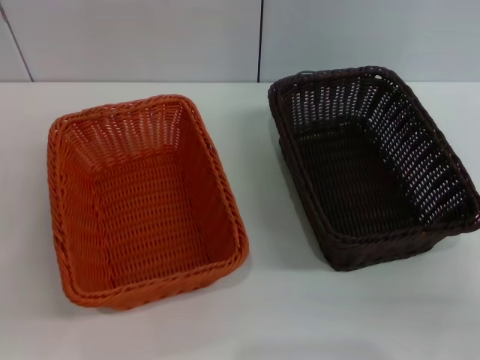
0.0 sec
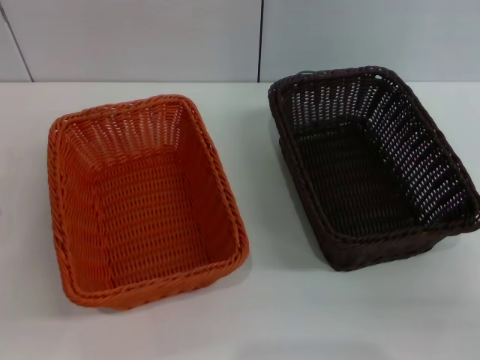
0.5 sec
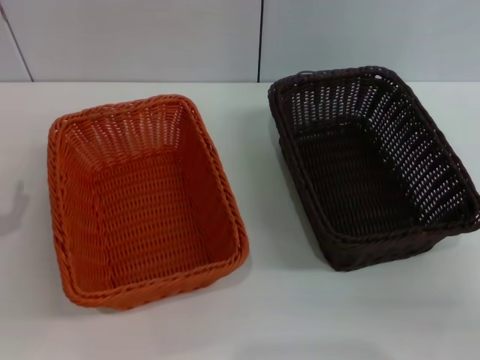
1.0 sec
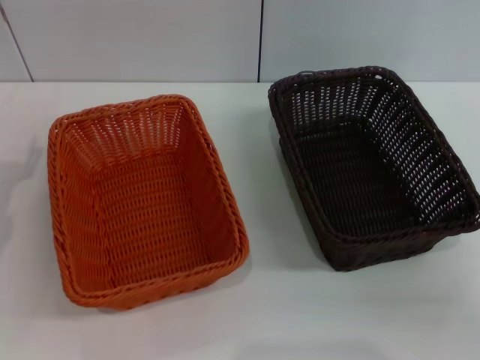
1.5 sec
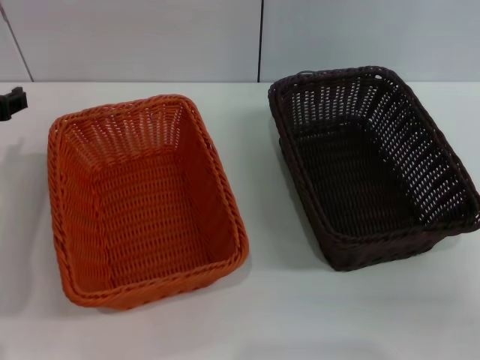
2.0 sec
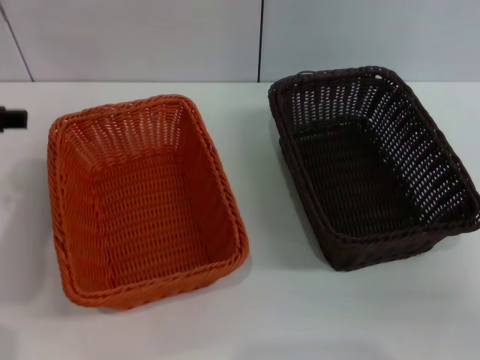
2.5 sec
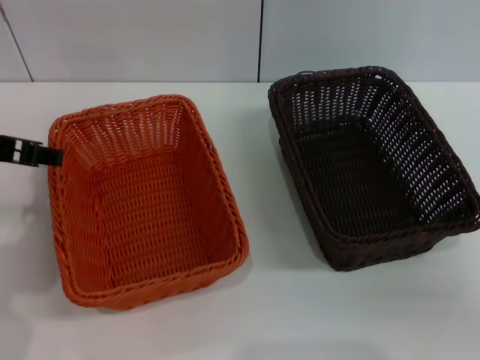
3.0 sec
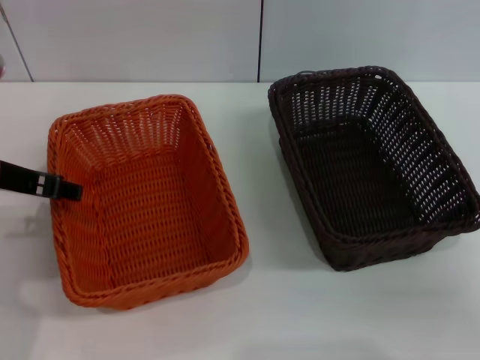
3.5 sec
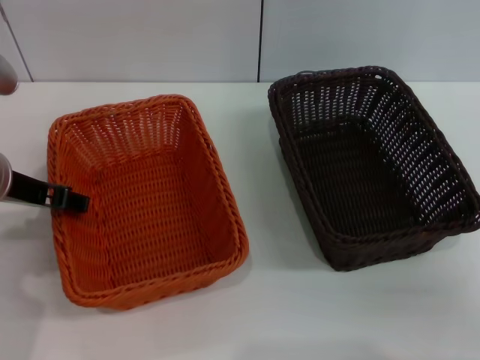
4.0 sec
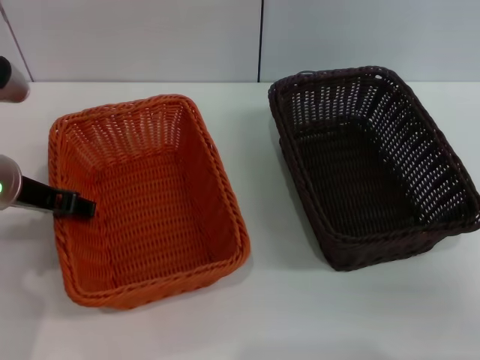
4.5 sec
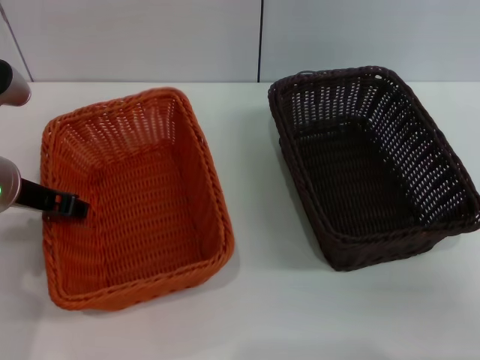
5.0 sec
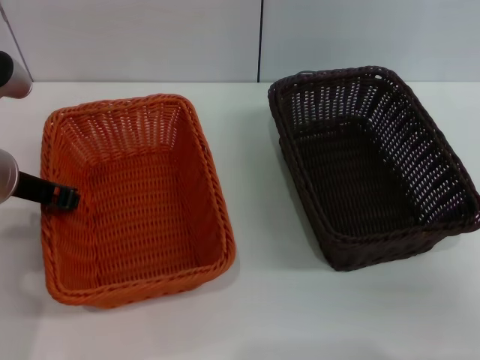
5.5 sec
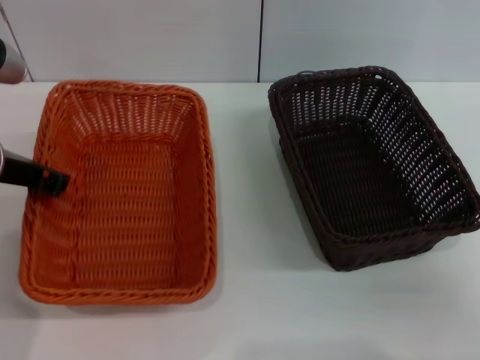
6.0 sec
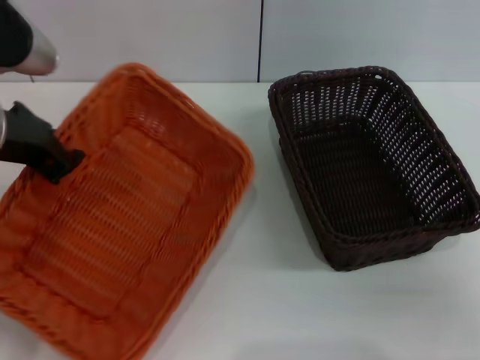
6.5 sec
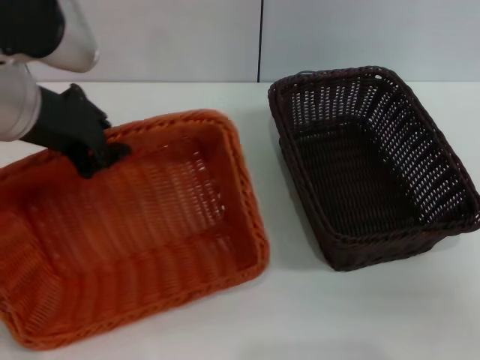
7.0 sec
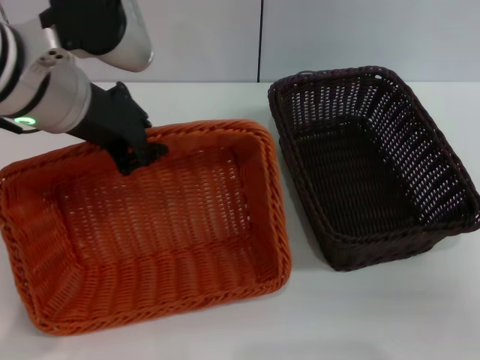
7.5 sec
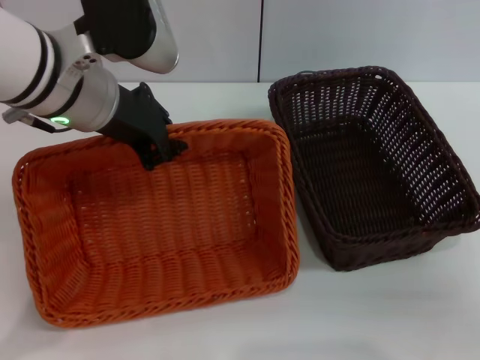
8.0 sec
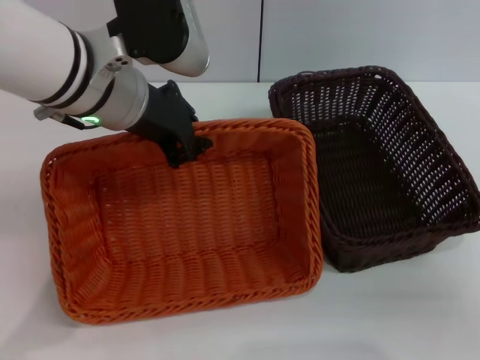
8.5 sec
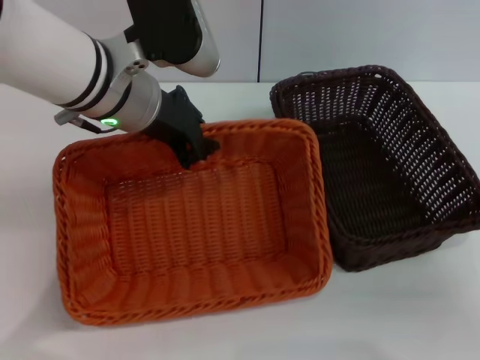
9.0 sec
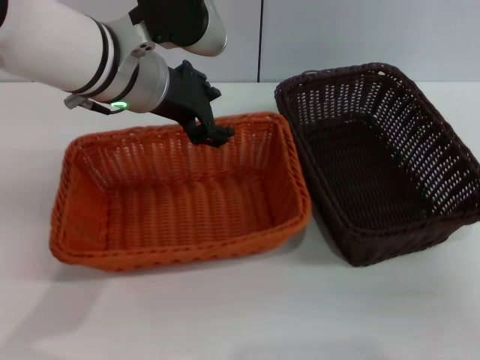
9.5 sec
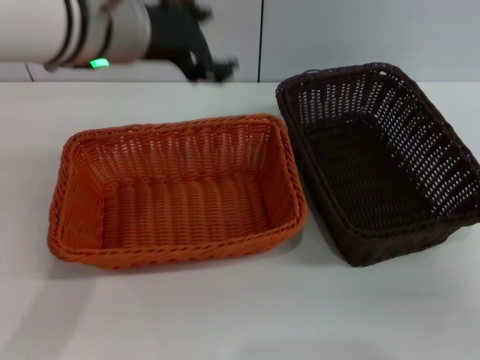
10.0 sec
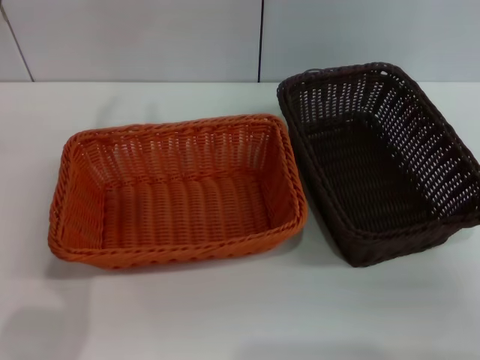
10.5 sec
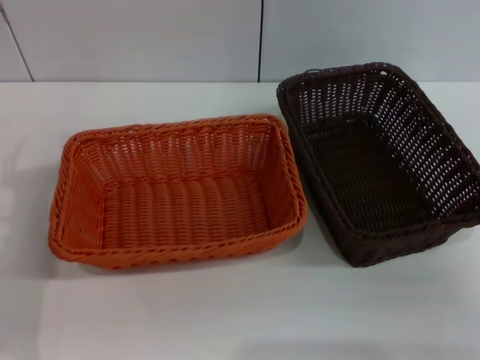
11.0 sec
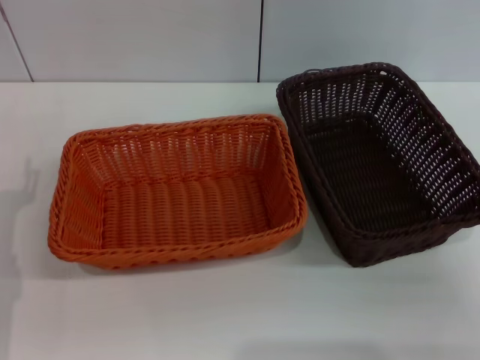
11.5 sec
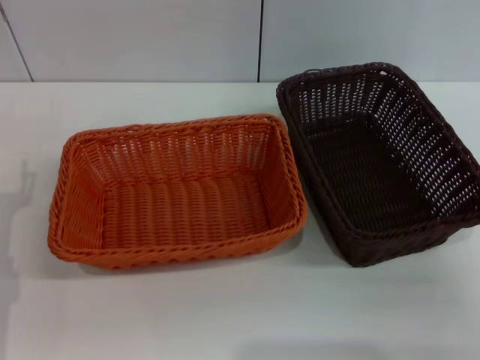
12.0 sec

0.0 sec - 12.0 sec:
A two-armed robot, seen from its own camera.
Step, 0.0 sec - 5.5 sec: Pick up the light basket with the left gripper.
Step, 6.0 sec - 9.5 sec: Place the light basket in the center of view with the left gripper.
0.0 sec - 2.0 sec: The left gripper moves upward and forward, approximately 20 cm.
4.0 sec - 6.0 sec: The left gripper closes up.
6.0 sec - 8.0 sec: The left gripper travels to the right and upward by roughly 10 cm.
8.0 sec - 10.0 sec: The left gripper opens its fingers.
10.0 sec - 12.0 sec: The left gripper is displaced downward, to the left and backward by some 30 cm.

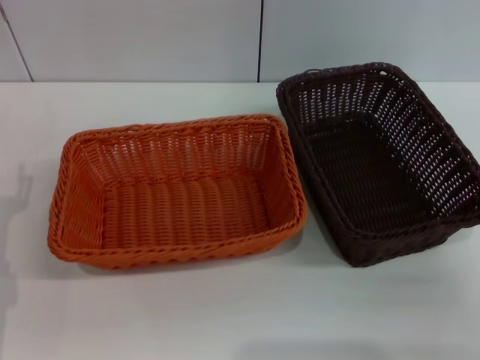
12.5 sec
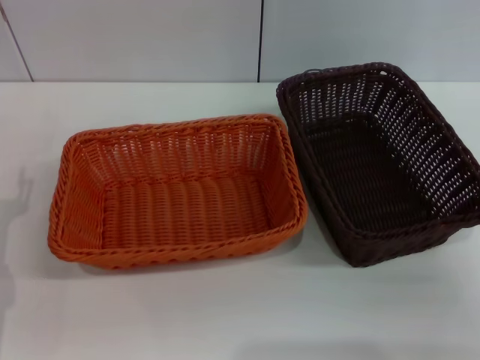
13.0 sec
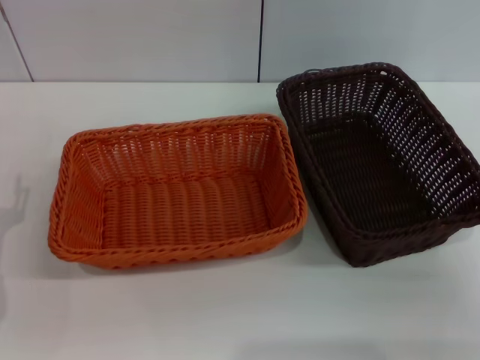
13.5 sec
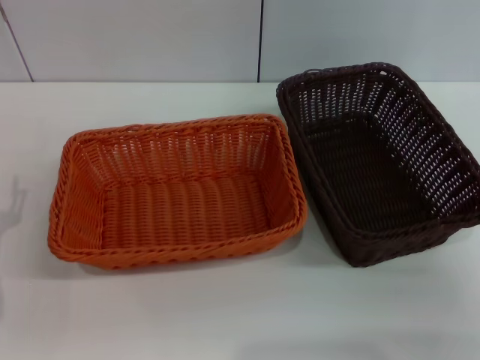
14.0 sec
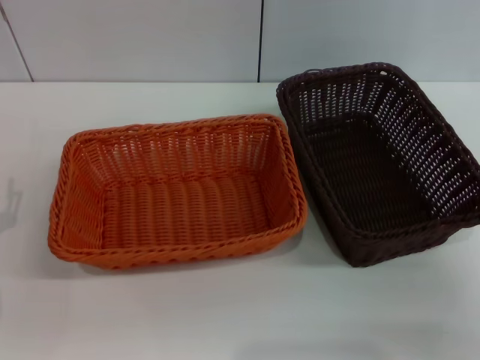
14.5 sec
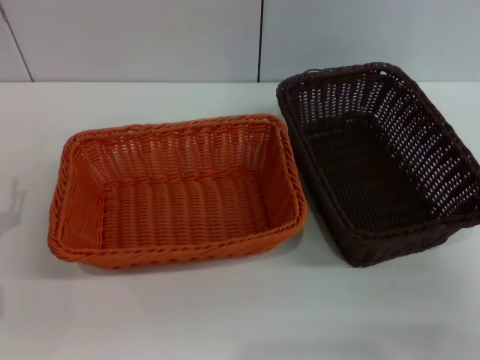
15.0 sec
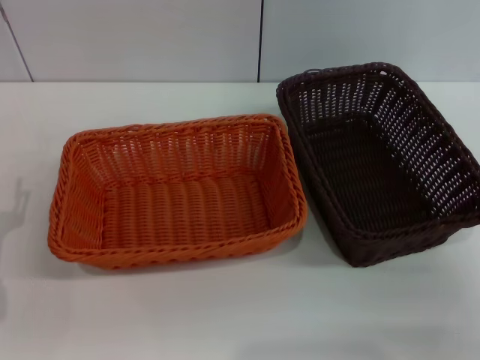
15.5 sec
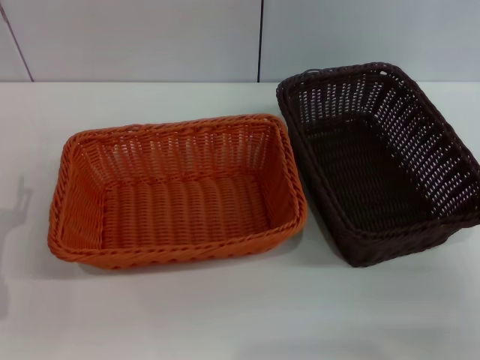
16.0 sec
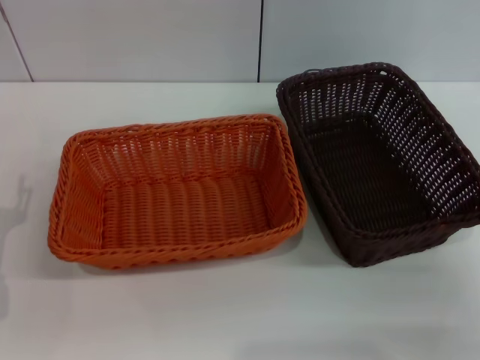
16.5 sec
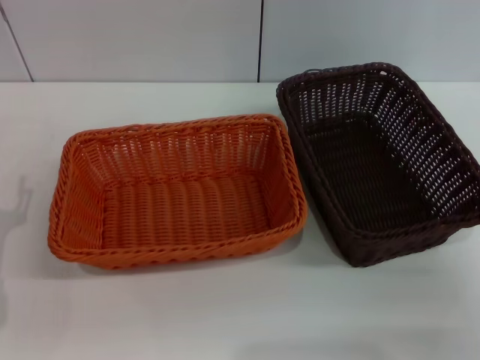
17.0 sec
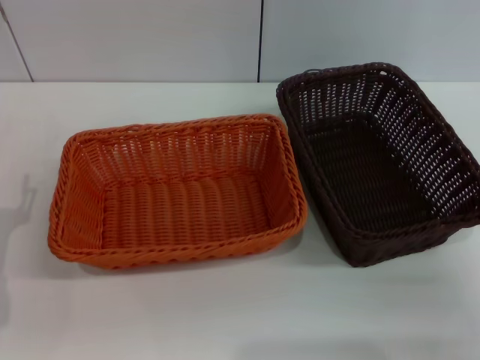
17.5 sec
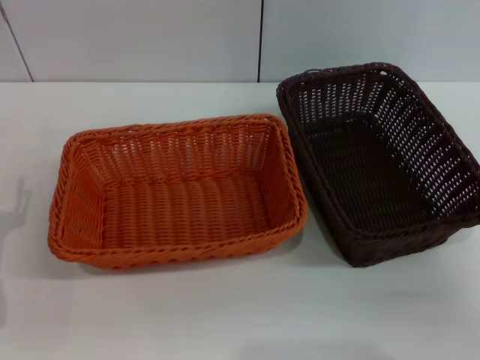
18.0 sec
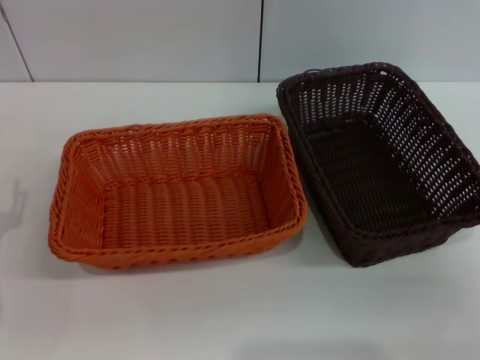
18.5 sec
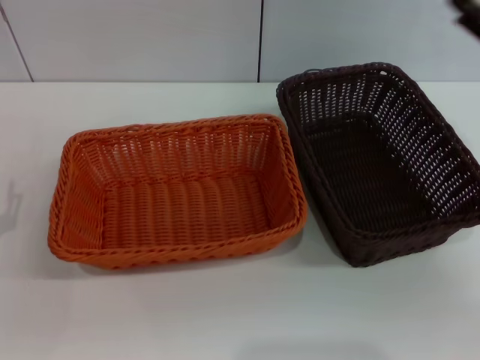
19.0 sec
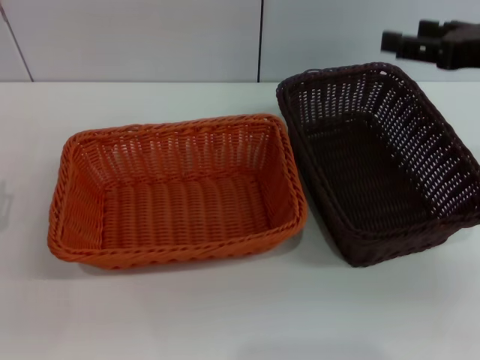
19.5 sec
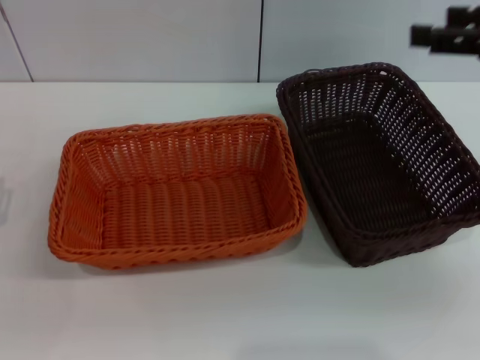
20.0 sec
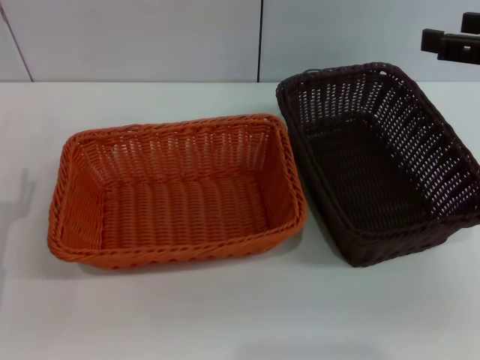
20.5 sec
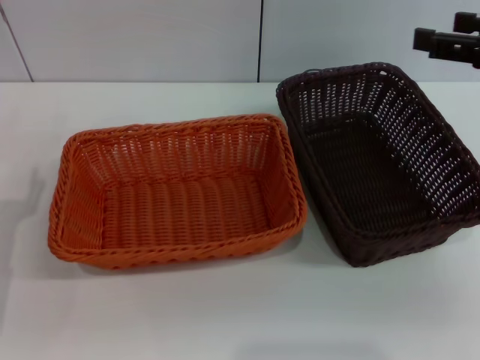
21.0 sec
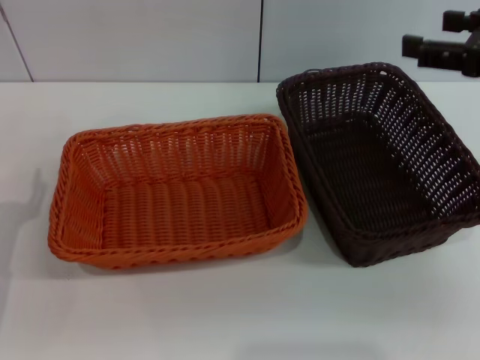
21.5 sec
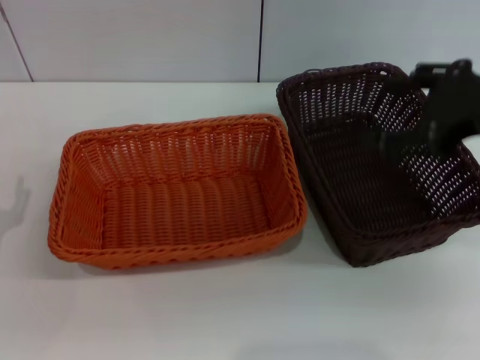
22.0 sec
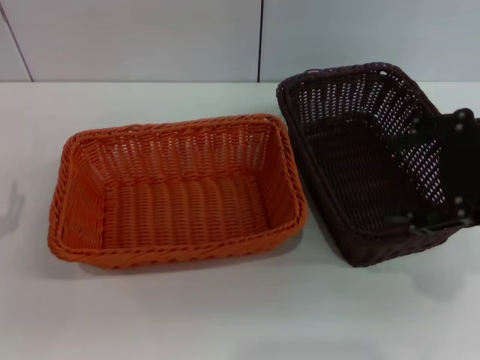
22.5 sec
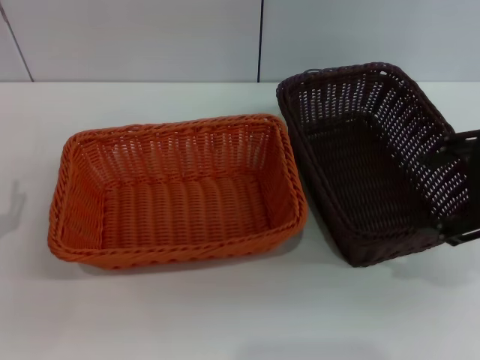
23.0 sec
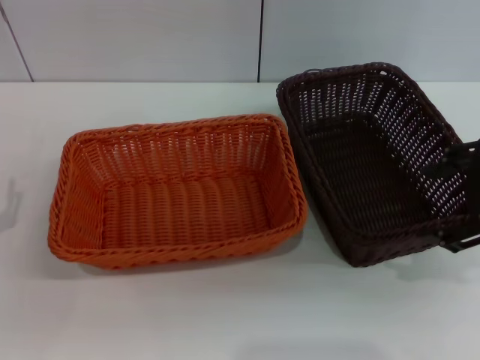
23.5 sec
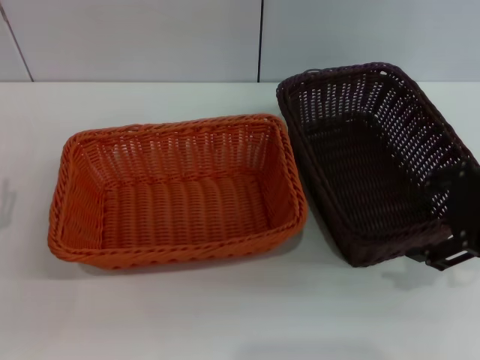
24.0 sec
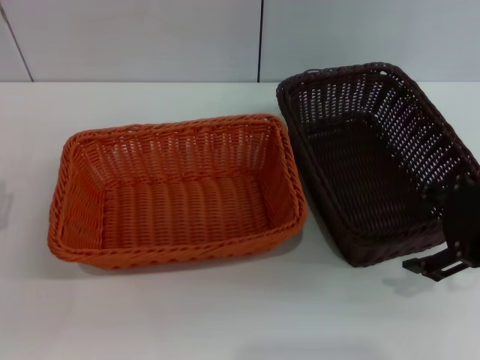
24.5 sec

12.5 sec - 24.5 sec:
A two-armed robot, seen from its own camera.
14.5 sec - 16.5 sec: The two grippers keep their place.
18.5 sec - 20.5 sec: The right gripper heads upward and forward, covering roughly 20 cm.
20.5 sec - 22.5 sec: The right gripper is displaced to the left by approximately 5 cm.
22.5 sec - 24.5 sec: The right gripper heads downward, covering roughly 5 cm.

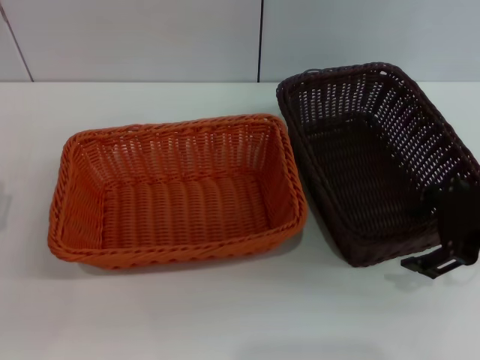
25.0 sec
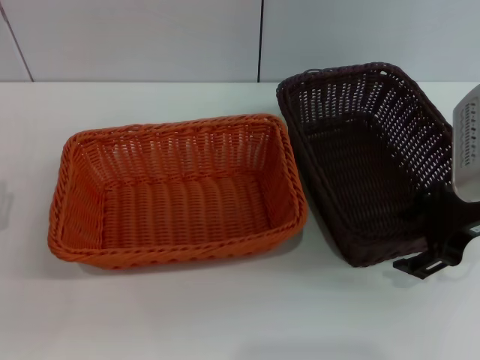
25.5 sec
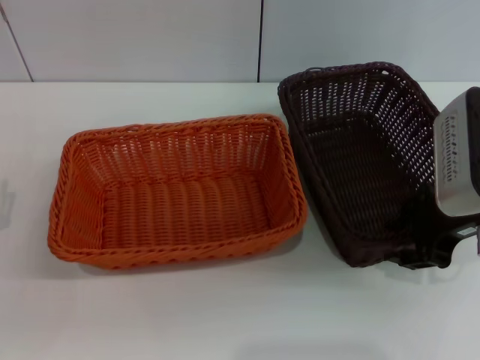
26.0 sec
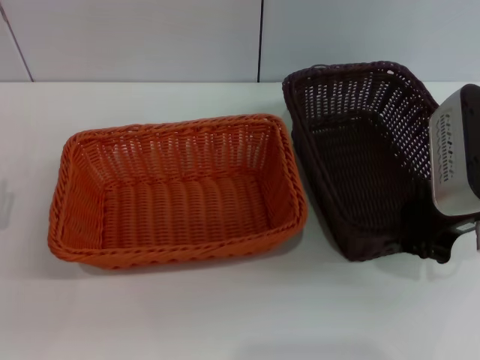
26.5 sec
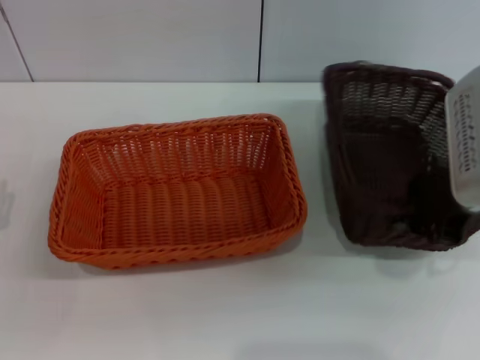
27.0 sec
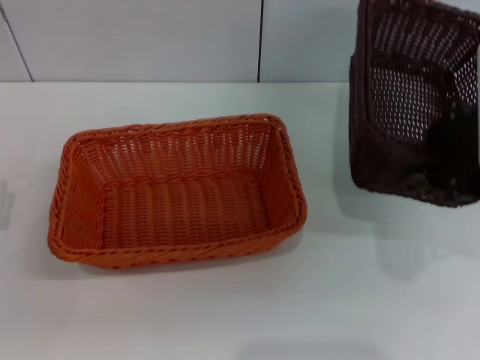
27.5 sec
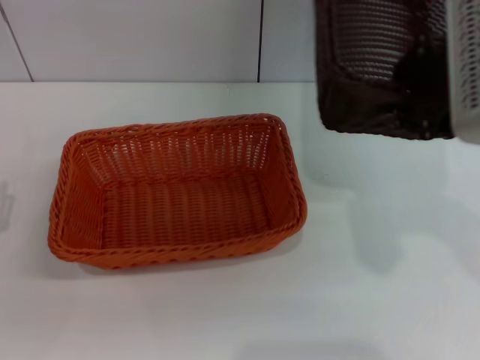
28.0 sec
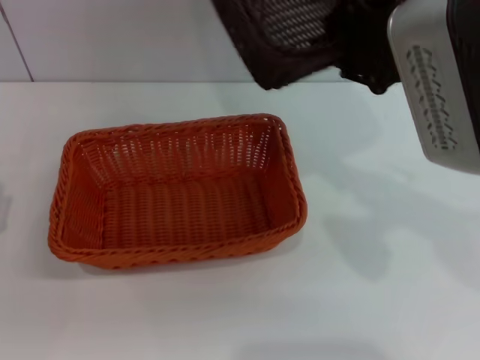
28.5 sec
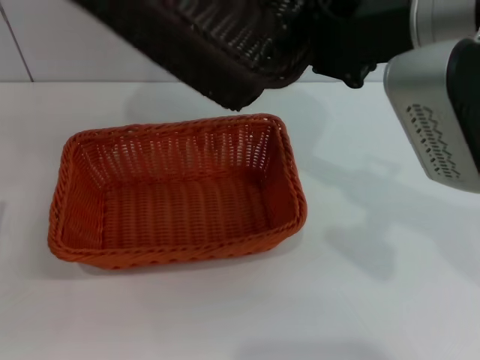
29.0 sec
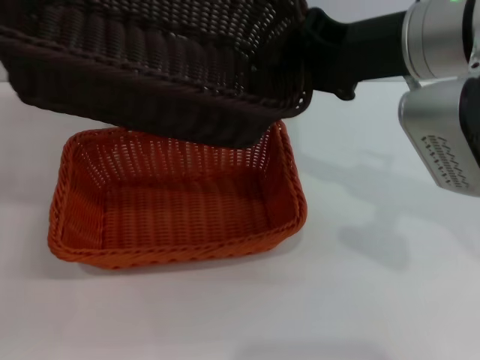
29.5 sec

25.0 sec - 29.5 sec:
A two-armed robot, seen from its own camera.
Step, 25.0 sec - 27.0 sec: Pick up the dark basket with the right gripper.
25.0 sec - 27.0 sec: The right gripper closes.
27.0 sec - 29.5 sec: The right gripper moves to the left and upward, roughly 10 cm.
